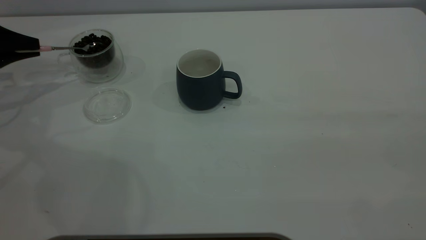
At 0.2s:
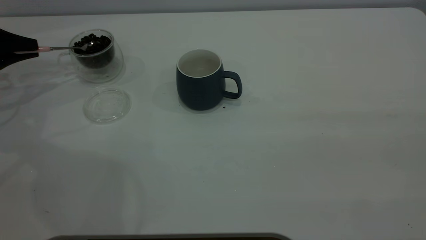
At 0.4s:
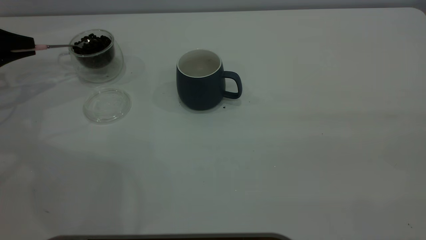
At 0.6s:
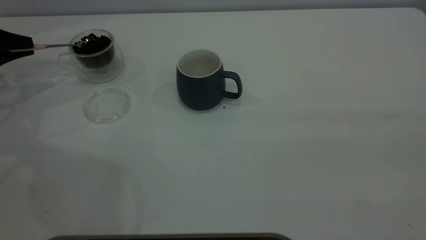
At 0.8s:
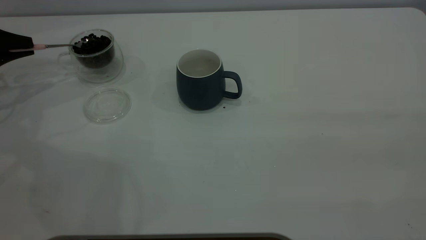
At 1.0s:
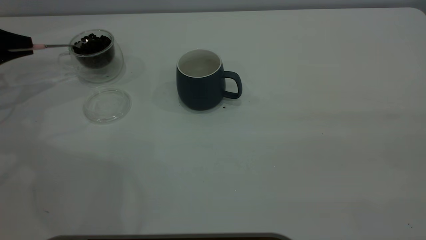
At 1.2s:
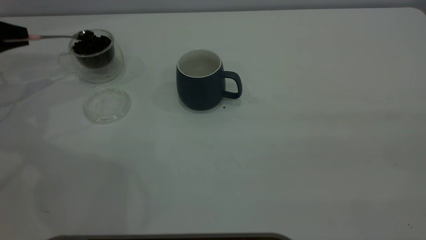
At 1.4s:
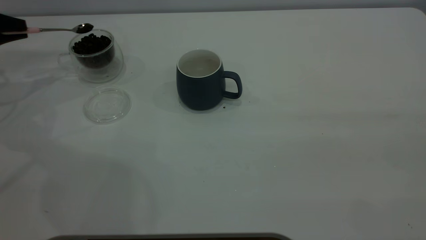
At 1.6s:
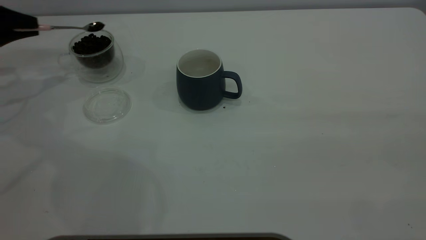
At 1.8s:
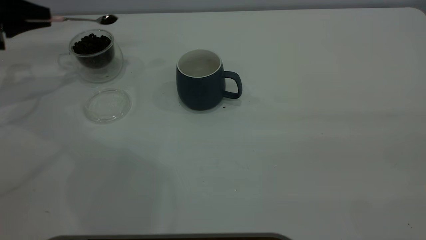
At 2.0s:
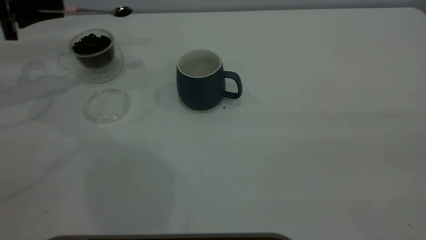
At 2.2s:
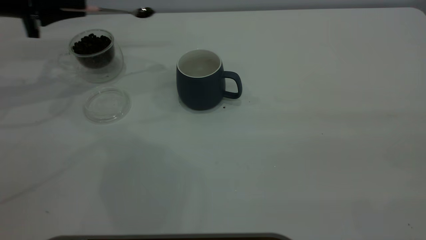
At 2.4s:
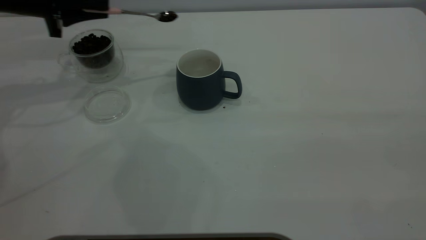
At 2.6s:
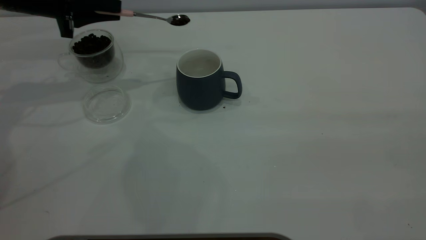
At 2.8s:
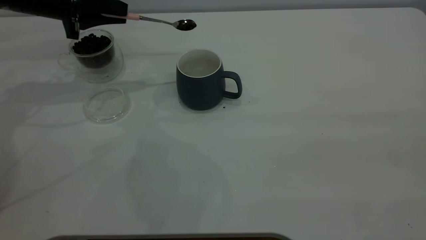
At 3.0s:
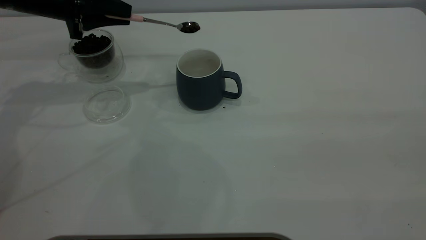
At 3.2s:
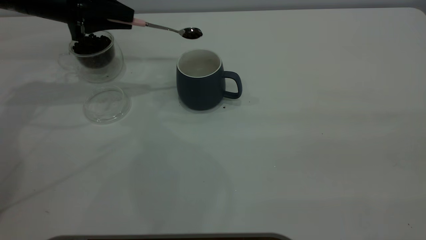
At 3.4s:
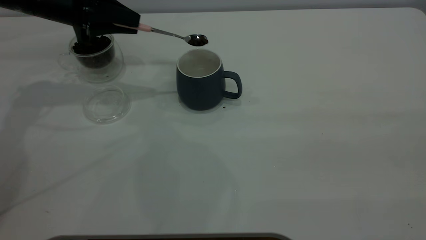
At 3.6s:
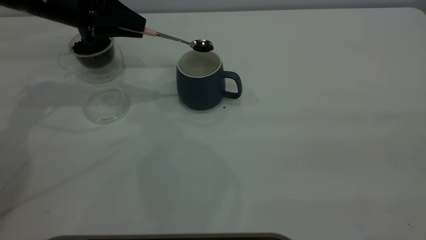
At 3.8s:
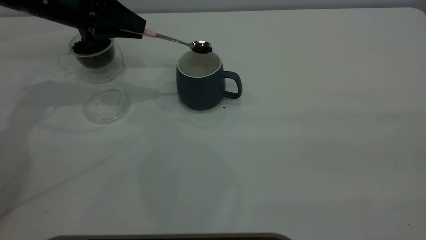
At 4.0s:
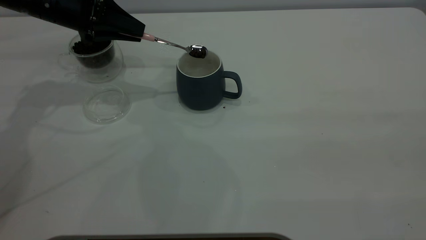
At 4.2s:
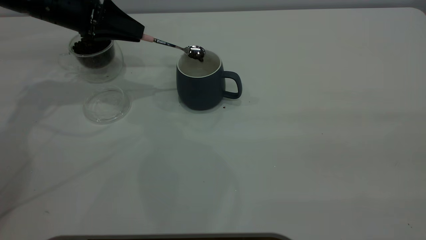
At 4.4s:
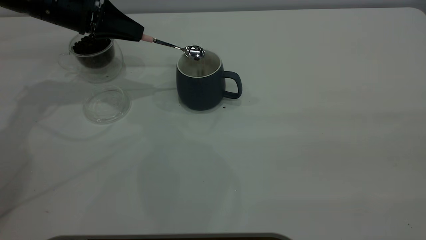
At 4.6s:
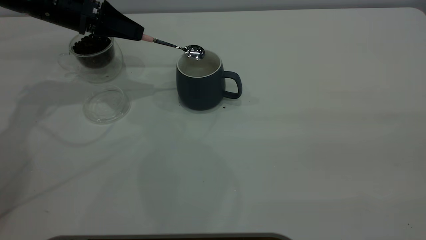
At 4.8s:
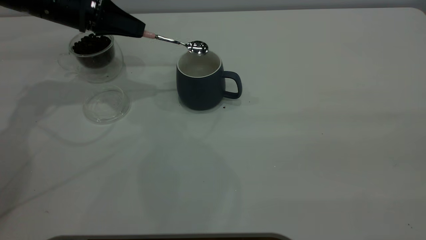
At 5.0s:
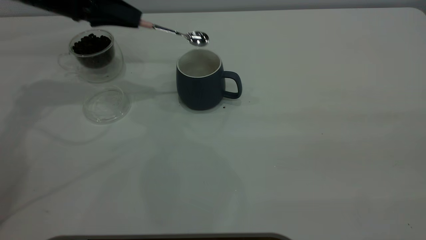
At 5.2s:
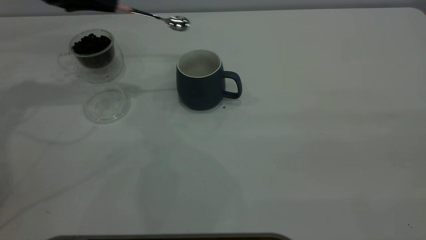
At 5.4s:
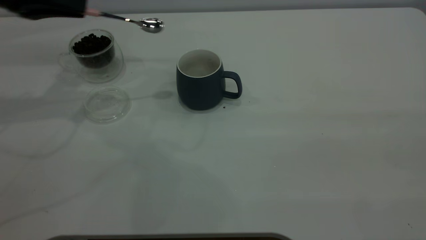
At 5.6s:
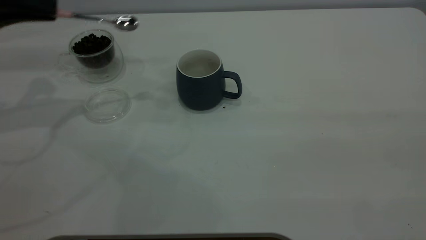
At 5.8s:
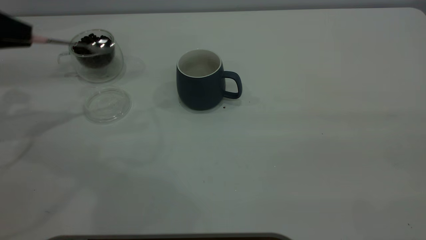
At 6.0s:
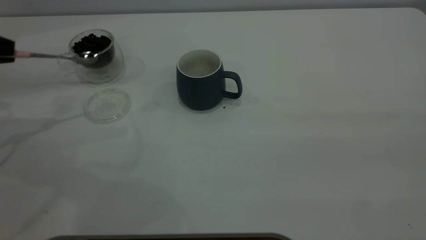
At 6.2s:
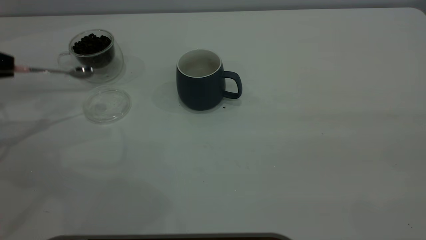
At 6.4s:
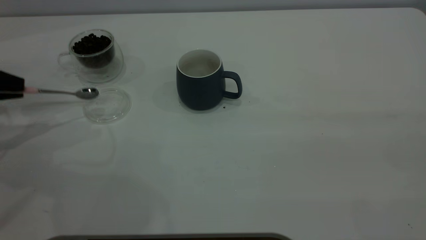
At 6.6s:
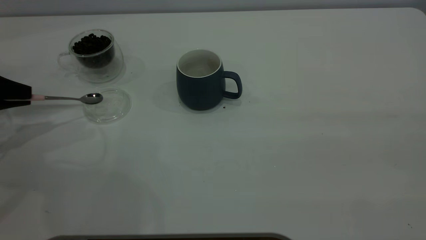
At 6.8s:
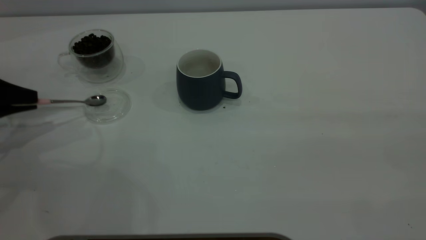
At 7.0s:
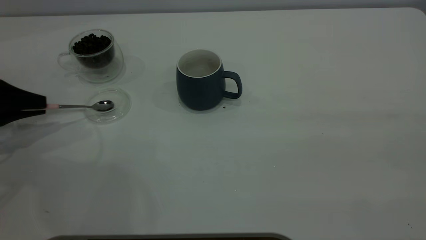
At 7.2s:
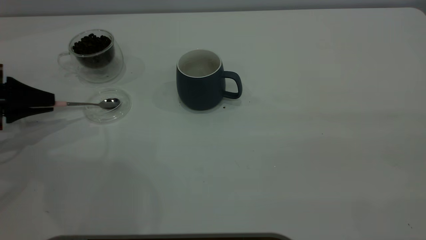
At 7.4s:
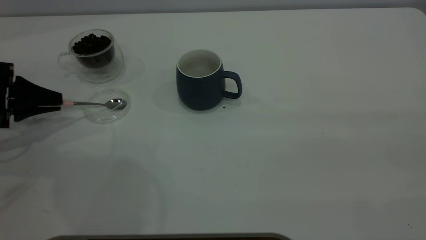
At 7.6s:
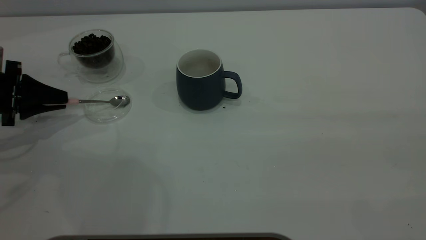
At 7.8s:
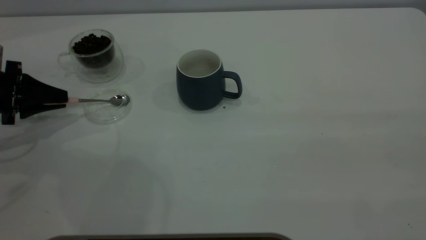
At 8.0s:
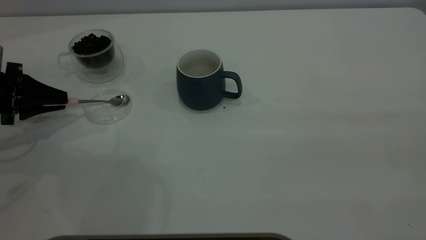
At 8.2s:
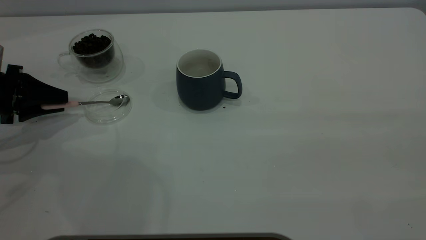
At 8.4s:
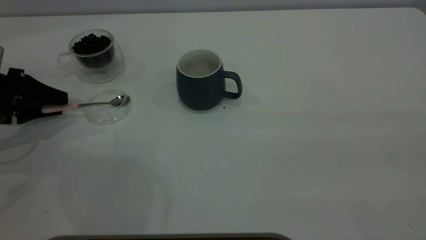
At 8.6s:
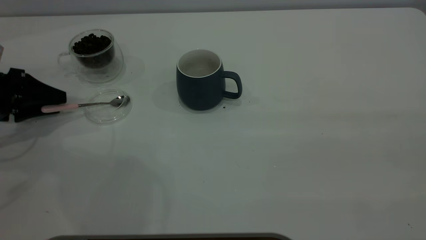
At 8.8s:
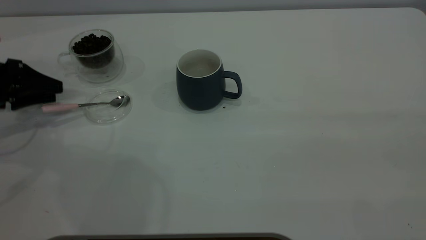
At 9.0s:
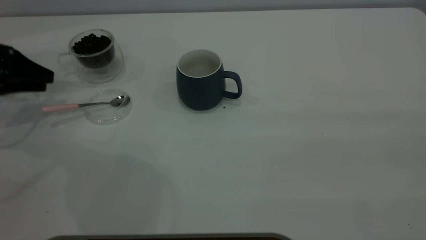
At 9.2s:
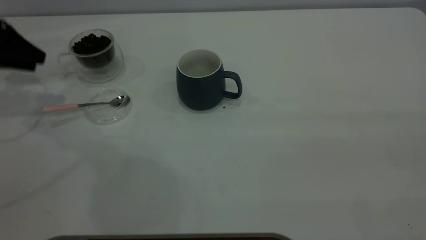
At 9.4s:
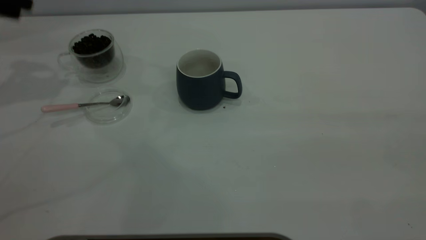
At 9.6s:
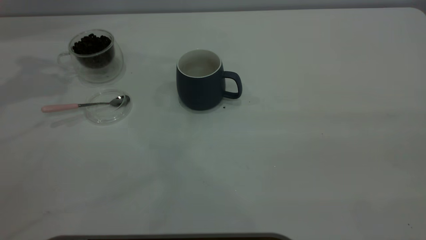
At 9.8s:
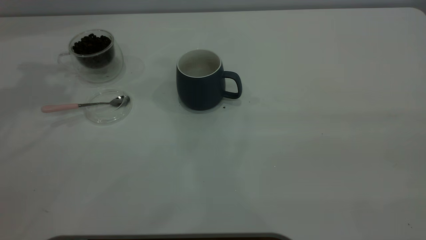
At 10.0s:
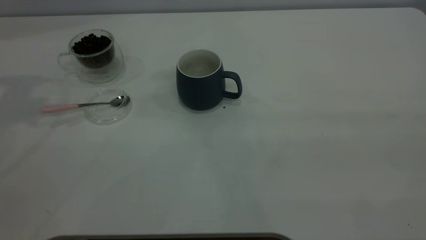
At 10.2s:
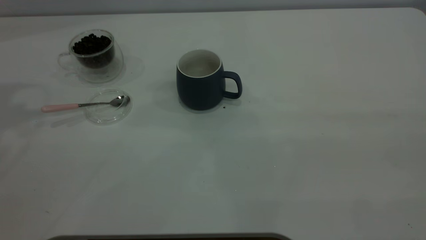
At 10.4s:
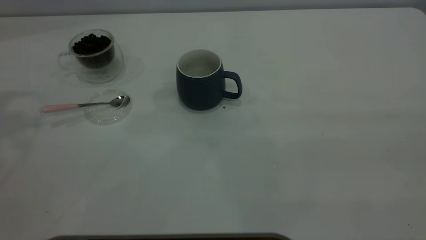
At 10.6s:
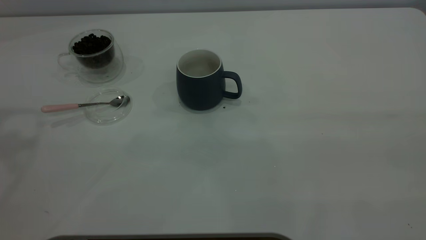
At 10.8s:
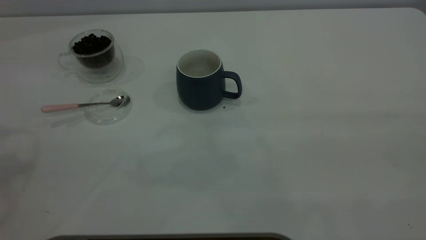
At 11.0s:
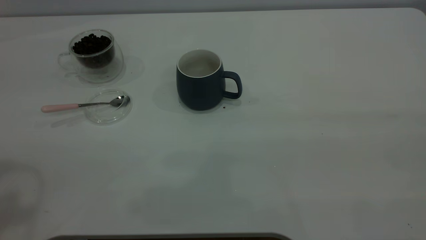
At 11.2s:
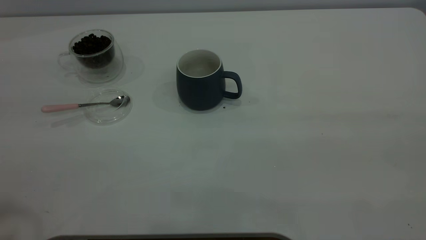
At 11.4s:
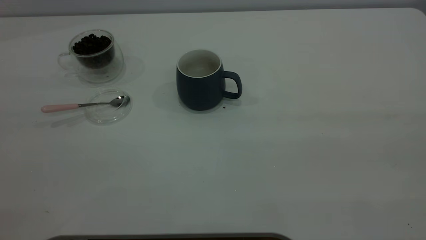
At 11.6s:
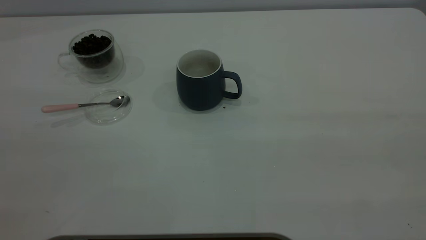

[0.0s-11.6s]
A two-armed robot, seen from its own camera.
Task of the whole recording: the right gripper place the grey cup in the center of the table, the left gripper take the pink spoon from the cup lid and scoop out the coffee beans from the coffee cup and put them into the grey cup, the left gripper put the spoon back into the cup lid.
Step, 0.0s to 5.0s: Scoop a spoonful of beans into the cup.
Step, 5.2s to 8.8s: Place the spoon back in its original place.
0.0s to 1.4s: The grippers move only a little.
1.4s to 2.8s: The left gripper is displaced to the right by approximately 15 cm.
4.4s to 5.8s: The left gripper travels to the left and backward by about 20 cm.
5.8s to 7.2s: The left gripper shifts about 10 cm downward.
7.2s to 8.8s: The left gripper opens.
8.8s to 10.2s: The left gripper moves upward, approximately 40 cm.

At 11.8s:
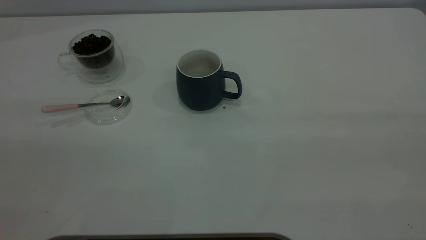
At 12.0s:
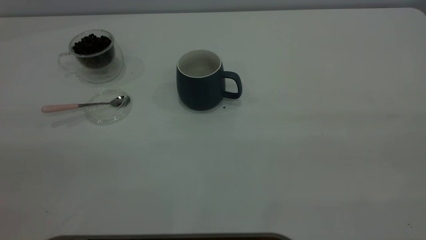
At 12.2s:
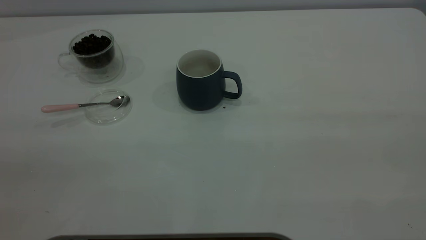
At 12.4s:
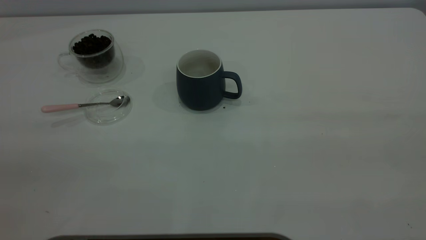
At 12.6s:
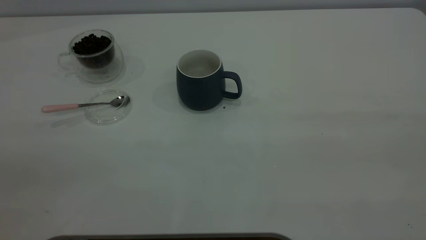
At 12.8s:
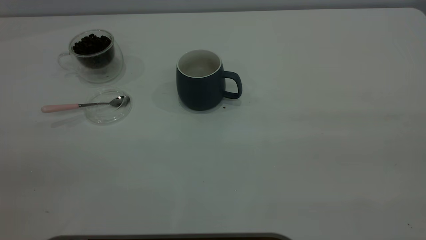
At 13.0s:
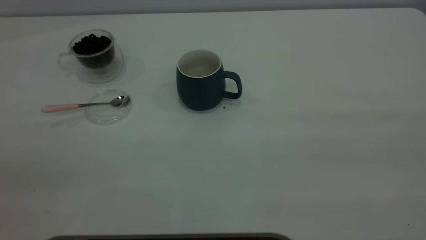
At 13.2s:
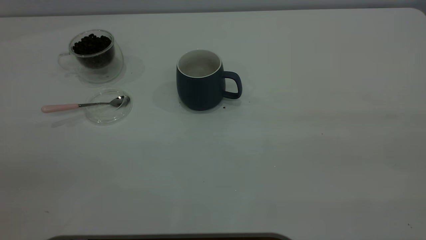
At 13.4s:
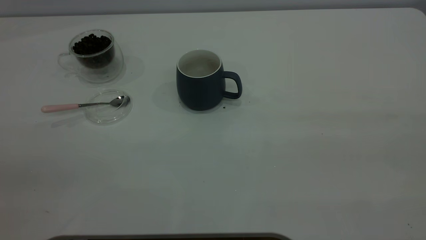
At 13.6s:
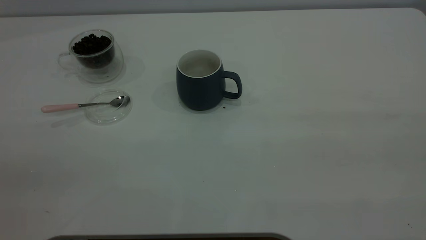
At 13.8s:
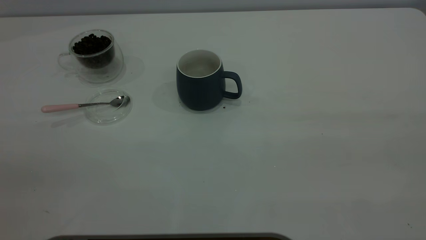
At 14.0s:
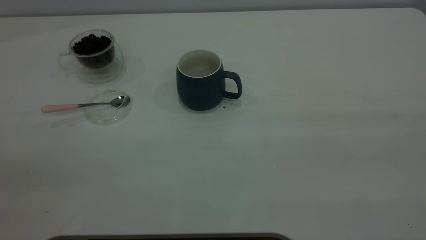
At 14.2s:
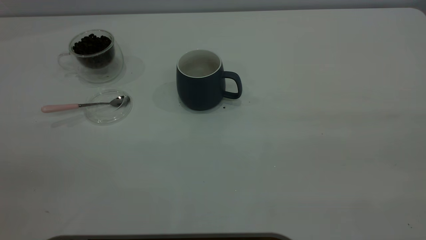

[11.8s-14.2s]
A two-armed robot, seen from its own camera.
Task of the whole recording: the right gripper place the grey cup in the center of the table, the left gripper take the pink spoon from the cup lid and scoop out the coffee beans from the coffee cup and put them into the grey cup, the left gripper put the spoon back into the cup lid.
13.0s to 14.2s: Both grippers stay about where they are.
